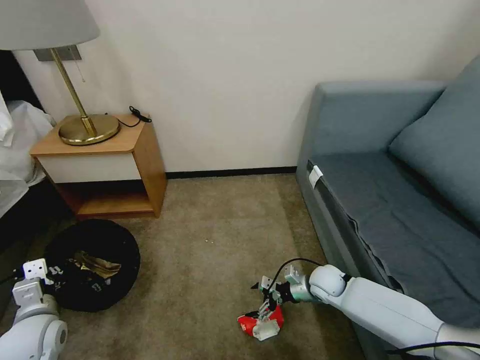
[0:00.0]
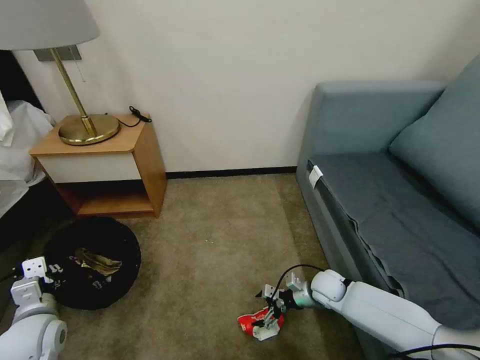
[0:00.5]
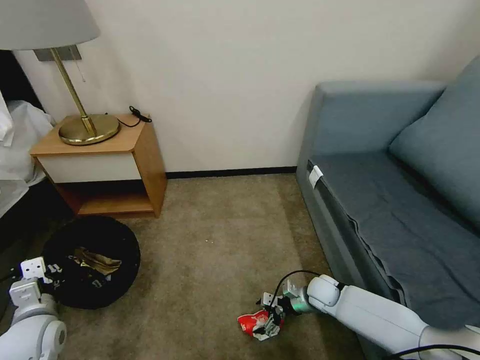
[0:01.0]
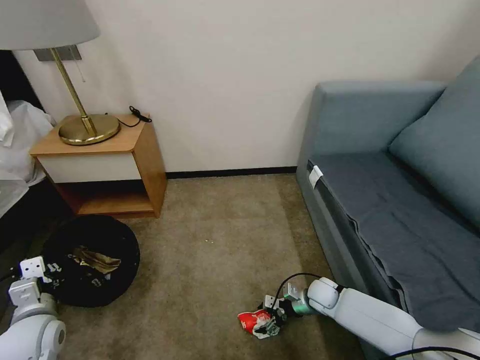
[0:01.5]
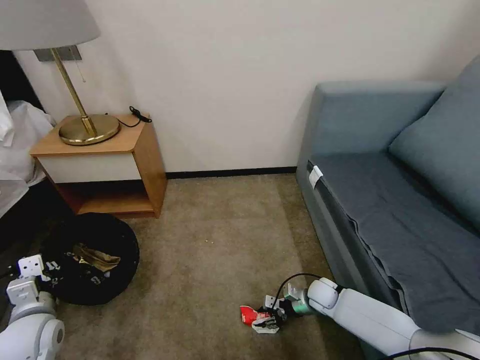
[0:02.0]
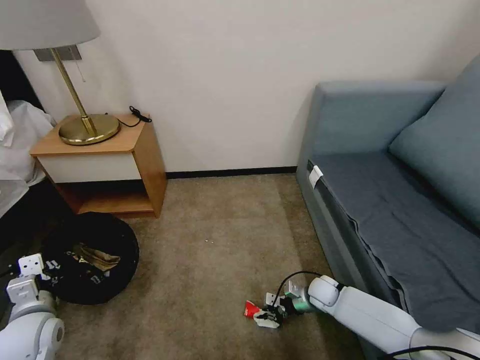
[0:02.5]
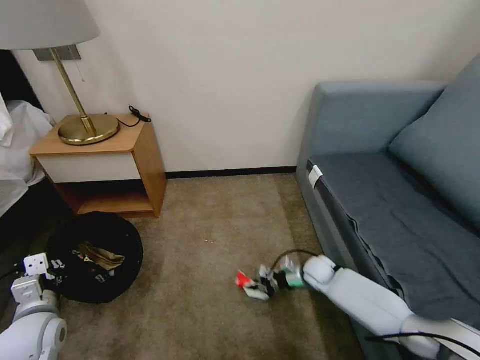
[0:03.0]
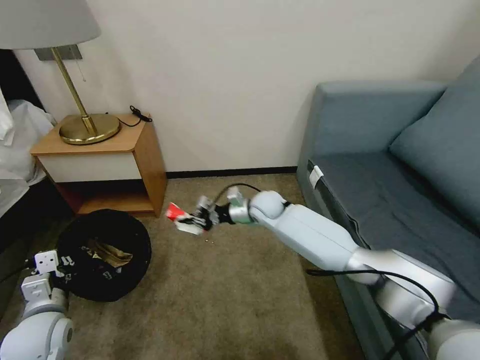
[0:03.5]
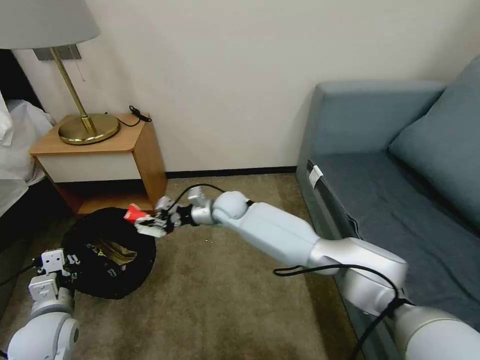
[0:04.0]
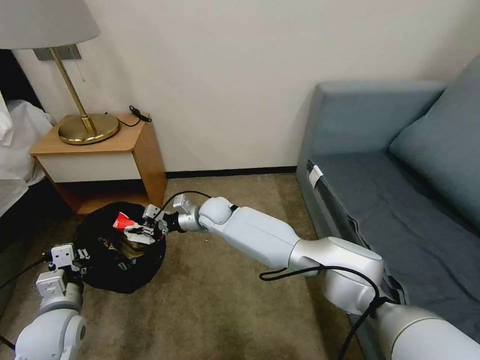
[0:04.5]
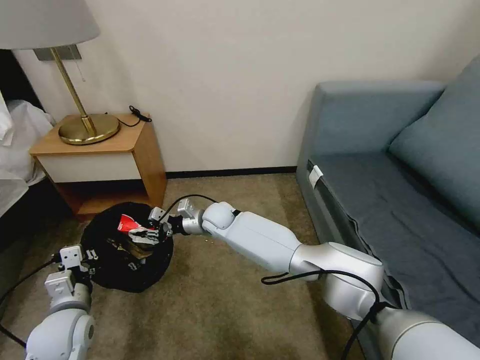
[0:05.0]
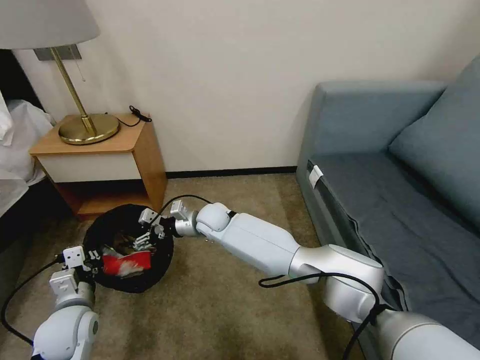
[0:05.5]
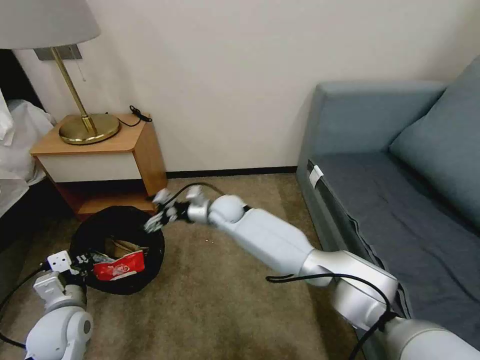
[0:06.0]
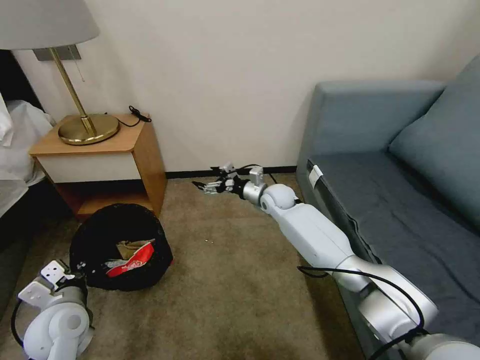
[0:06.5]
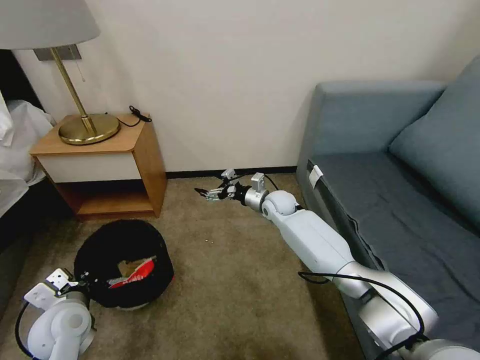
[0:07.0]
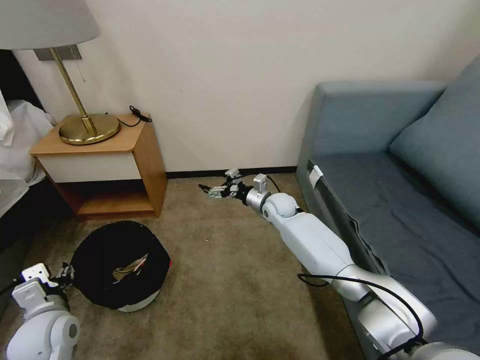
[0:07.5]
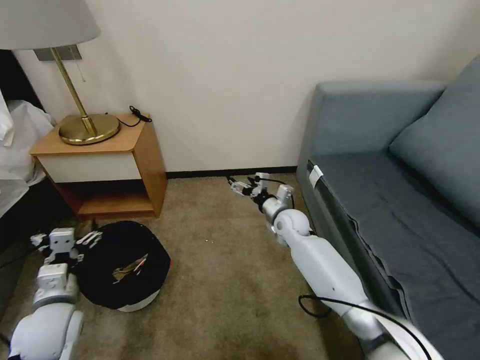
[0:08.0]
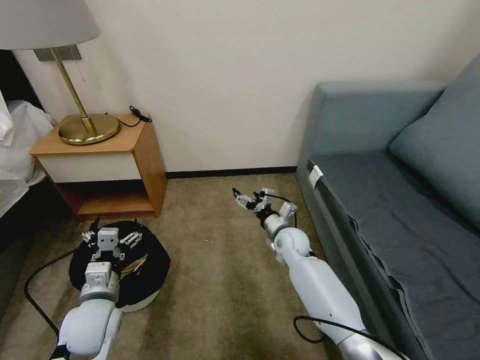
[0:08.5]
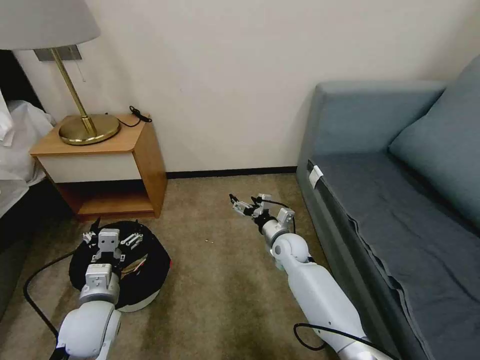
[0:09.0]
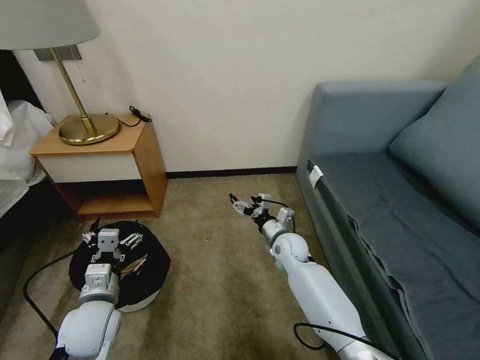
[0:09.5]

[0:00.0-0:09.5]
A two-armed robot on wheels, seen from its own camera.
Task of the whole recording: Pick up the trash bin, then pick up the garbage on the floor and place it into the trash bin.
0:00.0 to 0:02.0: The right gripper shifts roughly 5 cm downward, and closes its fingers.
0:02.0 to 0:04.0: The right gripper shifts roughly 40 cm to the left, upward and forward, and closes.
0:04.0 to 0:05.5: The right gripper changes place by roughly 5 cm, and opens.
0:05.5 to 0:07.5: The right gripper is displaced to the right by approximately 20 cm. The left gripper opens up.
0:07.5 to 0:09.5: The right gripper goes some 10 cm backward and downward, while the left gripper travels to the right by some 5 cm.

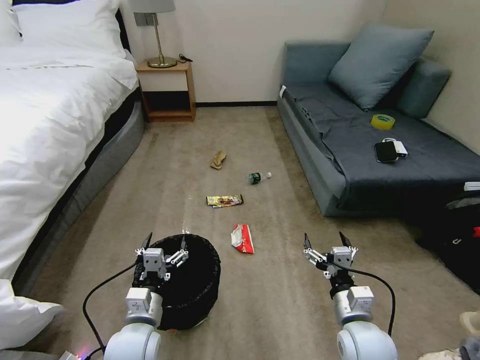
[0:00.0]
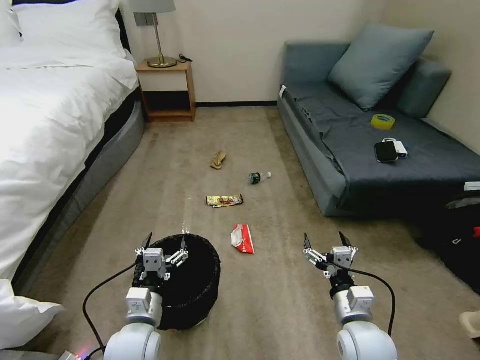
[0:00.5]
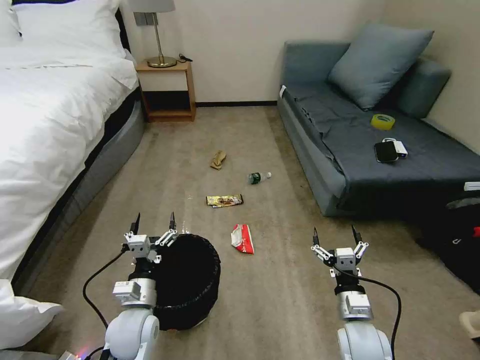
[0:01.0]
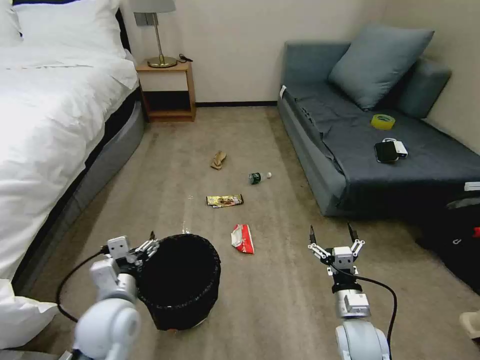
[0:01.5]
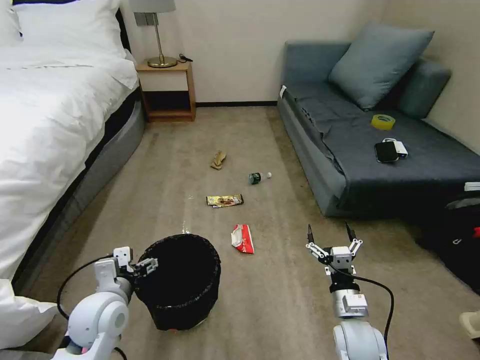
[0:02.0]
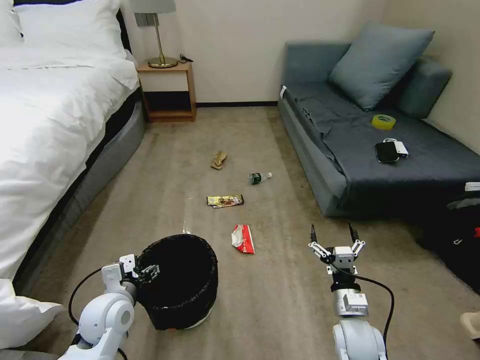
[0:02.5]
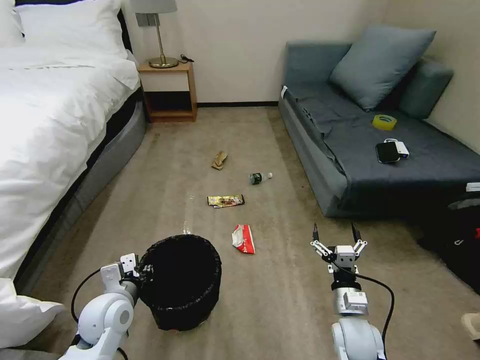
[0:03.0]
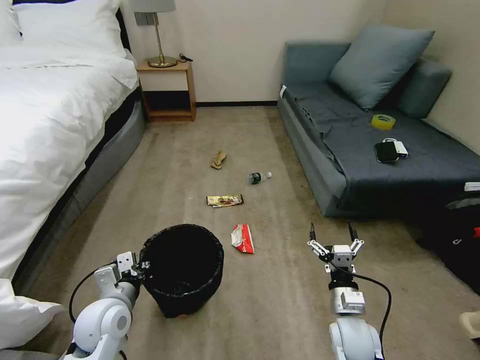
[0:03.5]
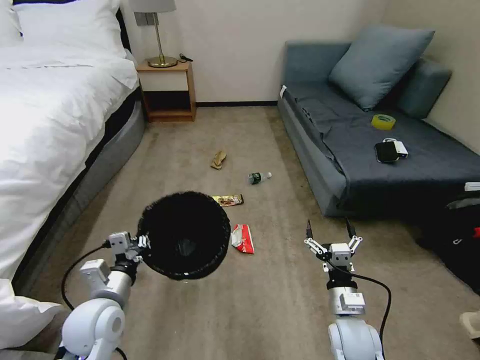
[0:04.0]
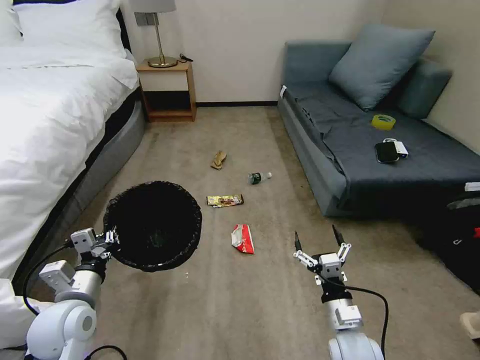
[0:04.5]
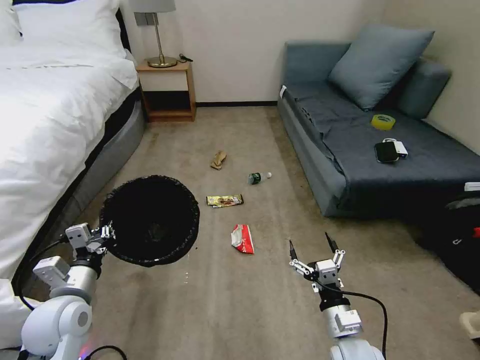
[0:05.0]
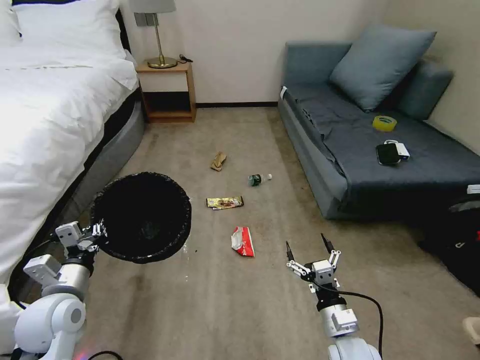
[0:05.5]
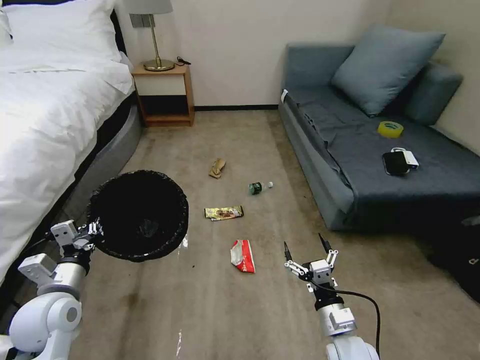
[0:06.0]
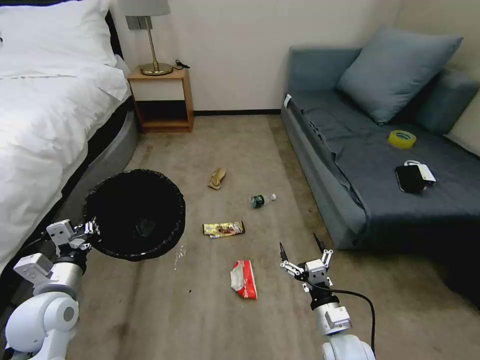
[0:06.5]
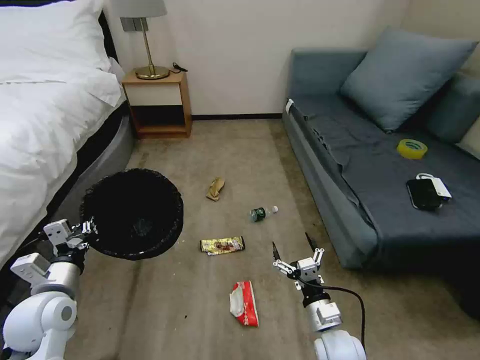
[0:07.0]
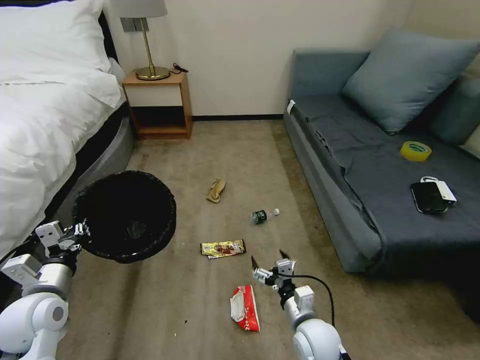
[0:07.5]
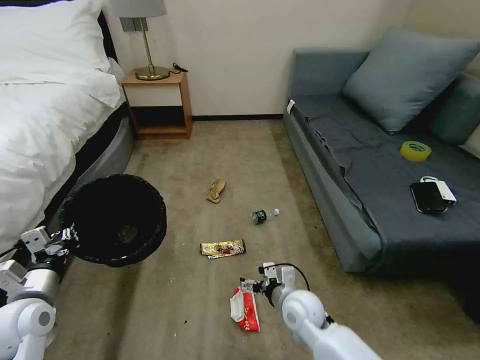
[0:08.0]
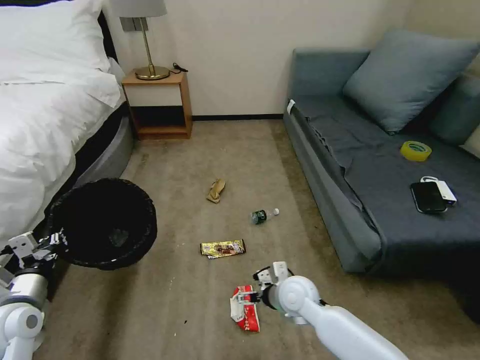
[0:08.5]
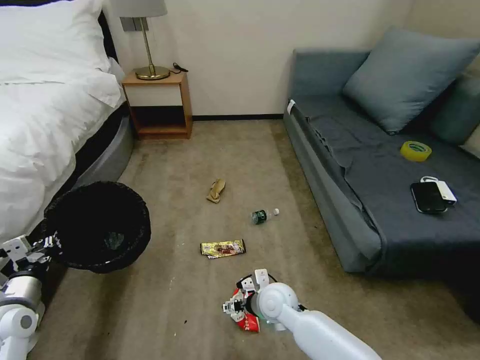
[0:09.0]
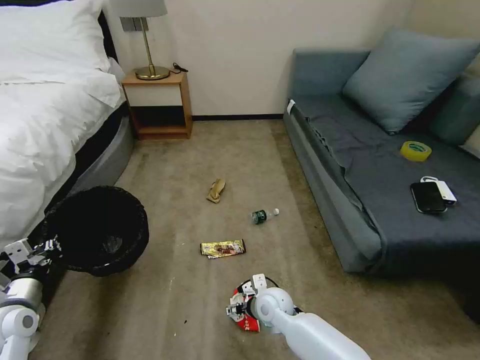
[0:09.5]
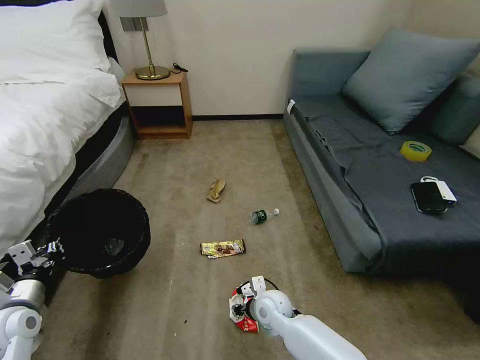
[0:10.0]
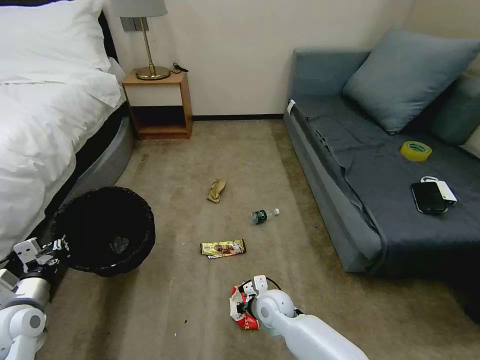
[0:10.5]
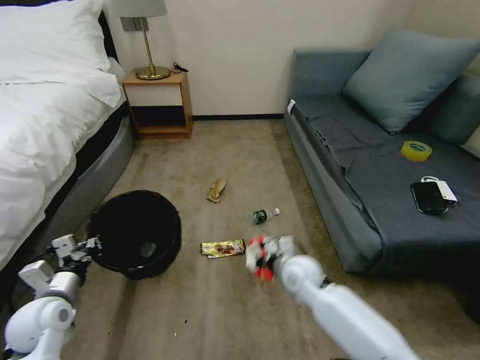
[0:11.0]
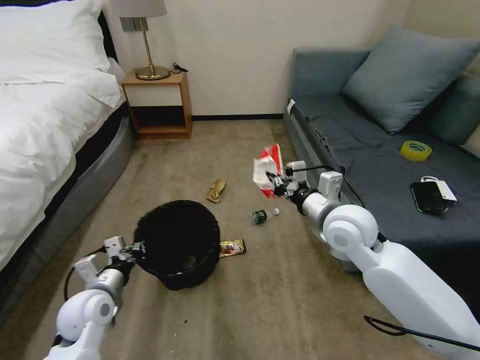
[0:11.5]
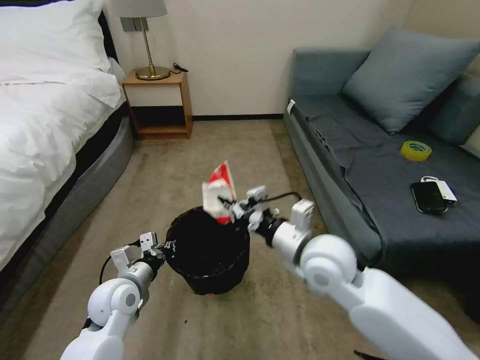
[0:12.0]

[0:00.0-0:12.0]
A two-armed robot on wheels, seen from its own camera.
Task of the whole recording: Pick up the trash bin, then pick up the garbage on the floor and place it into the trash bin.
0:02.0 to 0:04.0: The left gripper closes.
0:04.0 to 0:06.0: The left gripper is displaced to the left by some 10 cm.
0:06.0 to 0:08.0: The right gripper goes about 15 cm forward and to the left.
0:08.0 to 0:10.0: The right gripper is displaced downward and to the left by approximately 10 cm, and closes; the left gripper changes place by roughly 5 cm.
0:10.0 to 0:12.0: The left gripper shifts about 20 cm to the right, while the right gripper heads upward, covering some 25 cm, and closes.

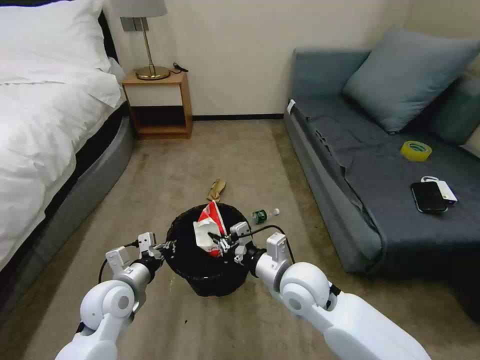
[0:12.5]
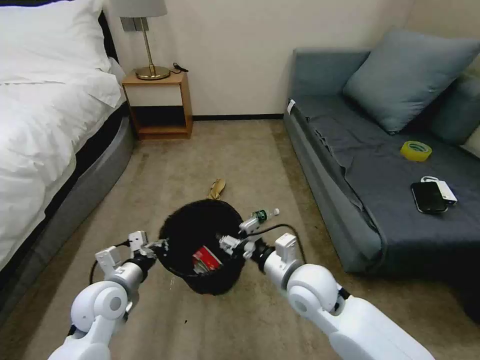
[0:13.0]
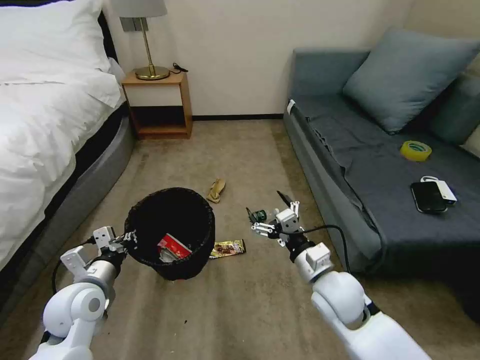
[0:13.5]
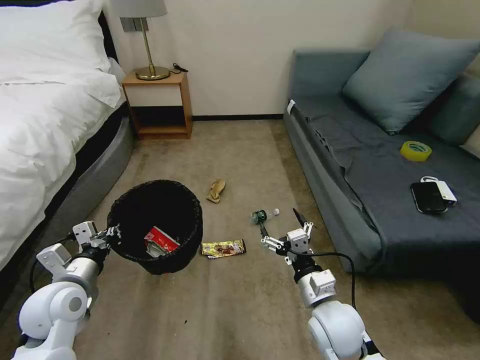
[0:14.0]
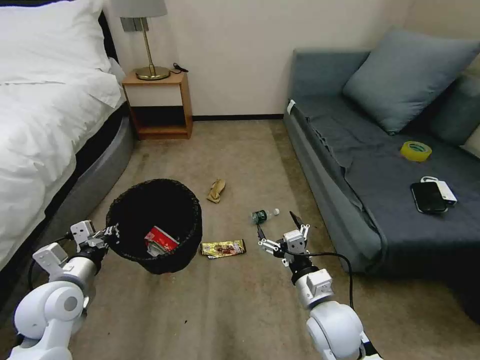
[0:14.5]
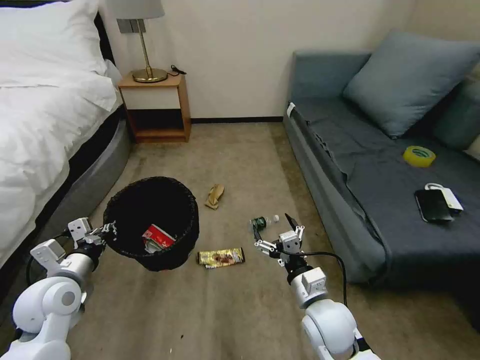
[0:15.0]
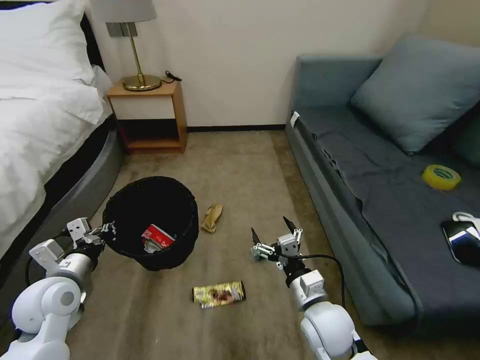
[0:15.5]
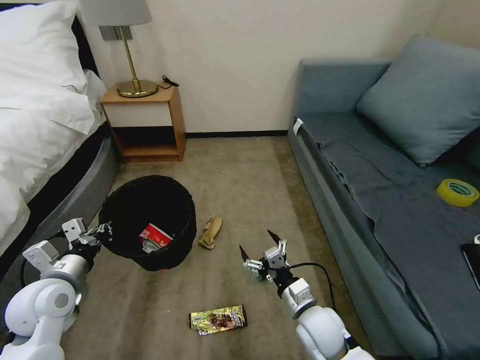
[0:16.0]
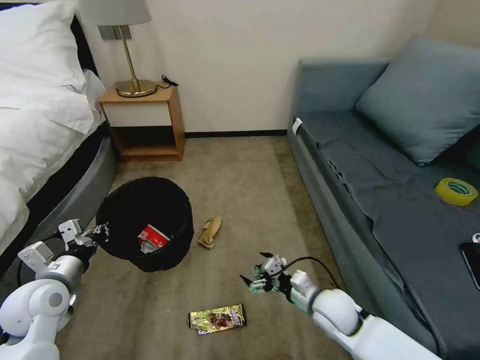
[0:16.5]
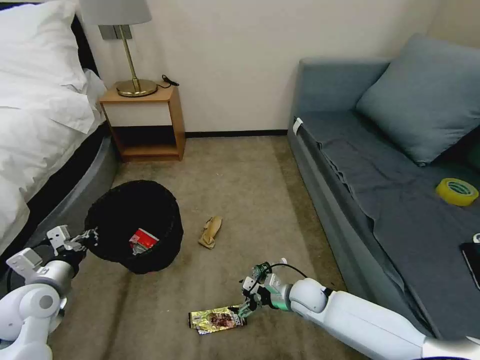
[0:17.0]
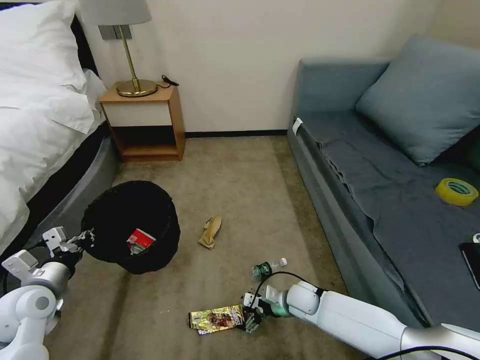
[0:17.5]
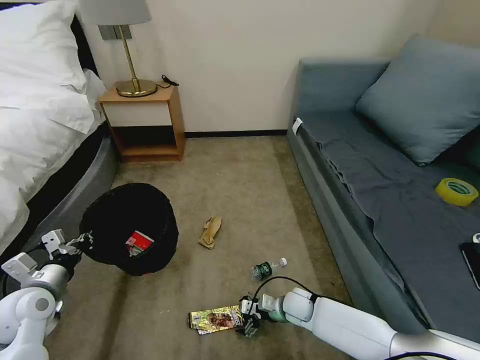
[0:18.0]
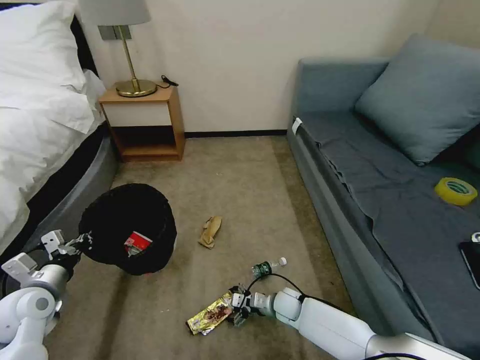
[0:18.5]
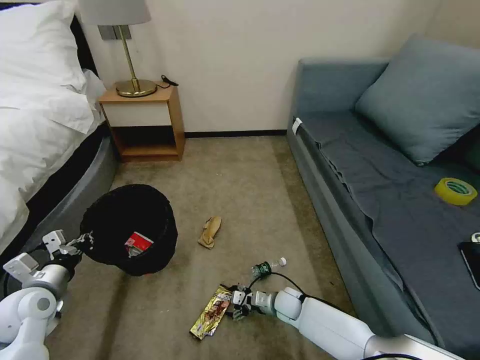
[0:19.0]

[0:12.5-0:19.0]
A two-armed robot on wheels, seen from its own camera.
Task of the whole recording: Pick up the trash bin, then pick up the garbage on the floor and place it into the trash bin.
0:12.5 to 0:14.5: The right gripper is displaced backward and to the right by approximately 10 cm, and opens. The left gripper travels to the left and upward by some 10 cm.
0:14.5 to 0:17.0: The right gripper goes some 15 cm downward and forward; the left gripper is displaced to the left by roughly 5 cm.
0:17.0 to 0:19.0: The right gripper travels downward by approximately 10 cm.
